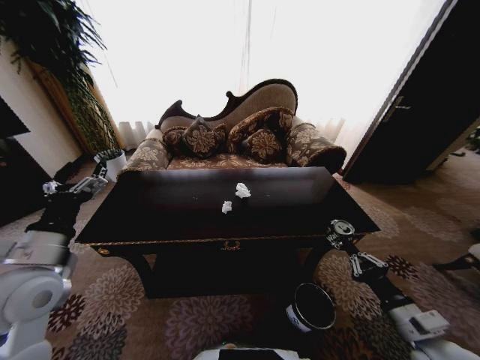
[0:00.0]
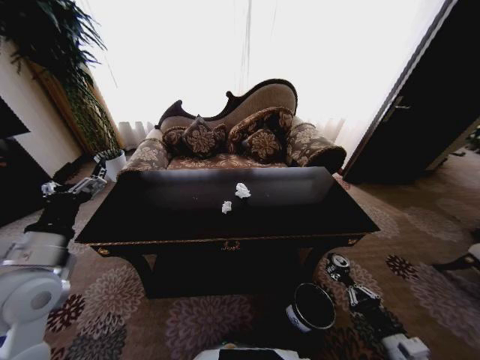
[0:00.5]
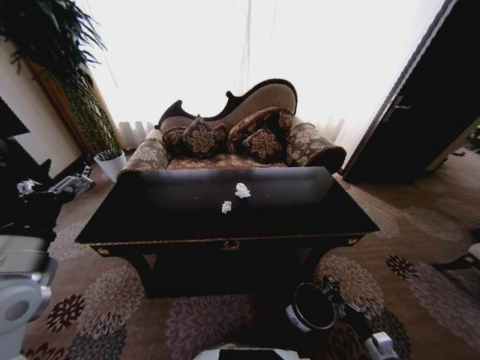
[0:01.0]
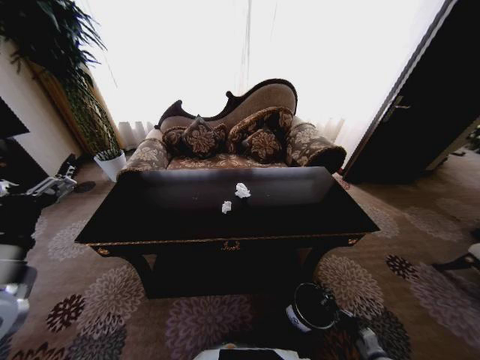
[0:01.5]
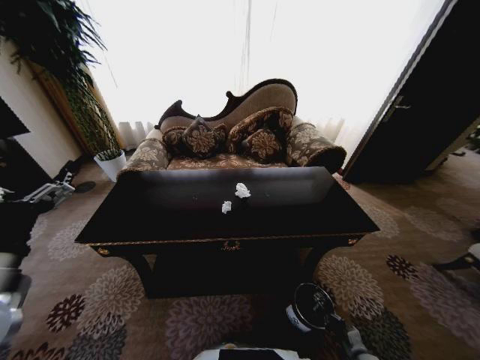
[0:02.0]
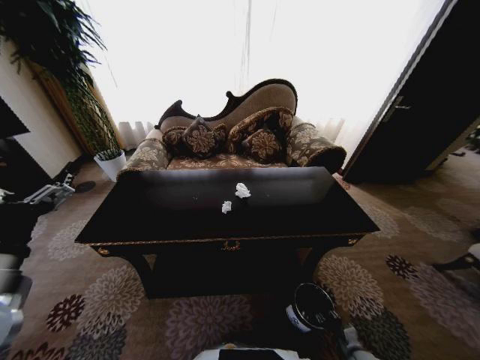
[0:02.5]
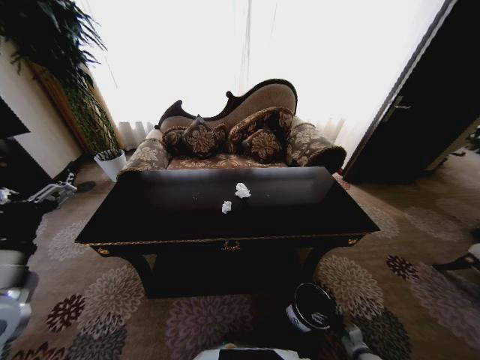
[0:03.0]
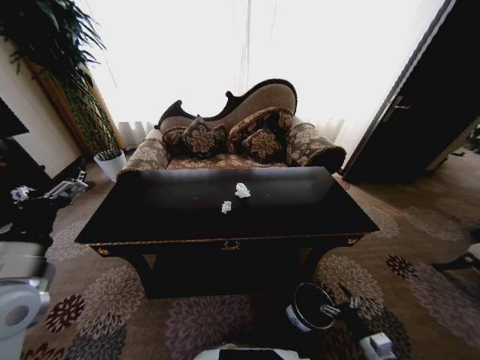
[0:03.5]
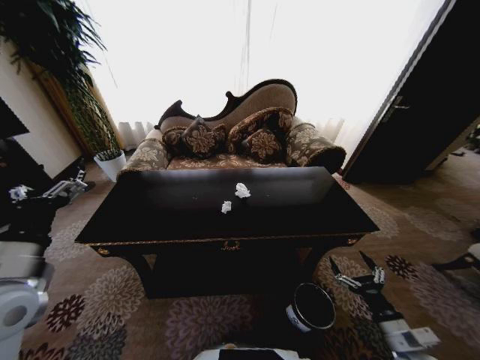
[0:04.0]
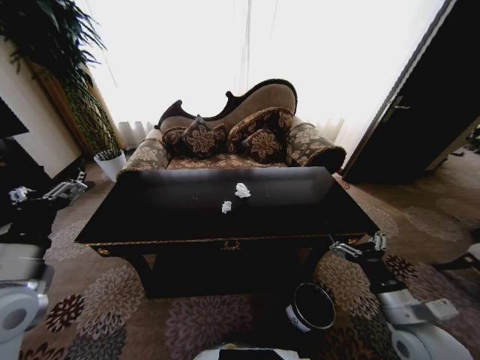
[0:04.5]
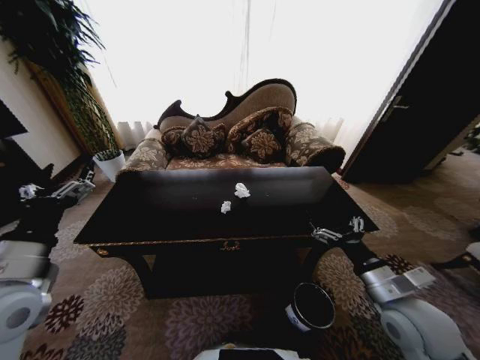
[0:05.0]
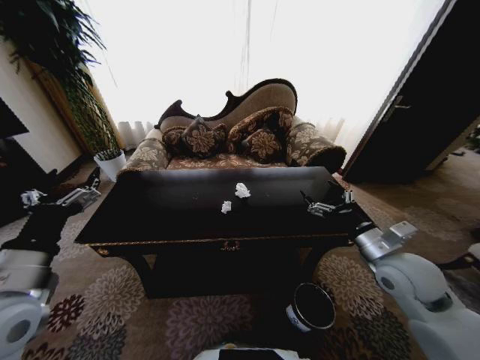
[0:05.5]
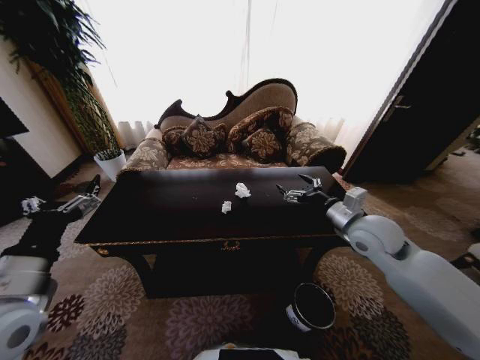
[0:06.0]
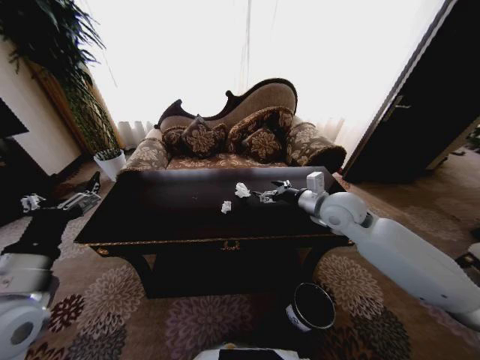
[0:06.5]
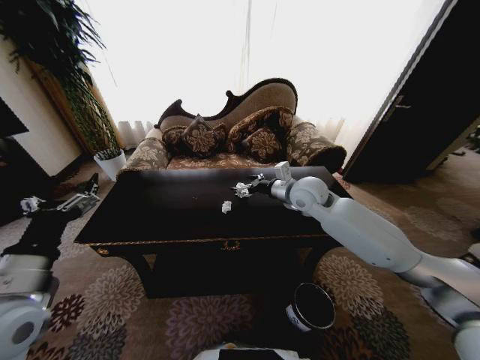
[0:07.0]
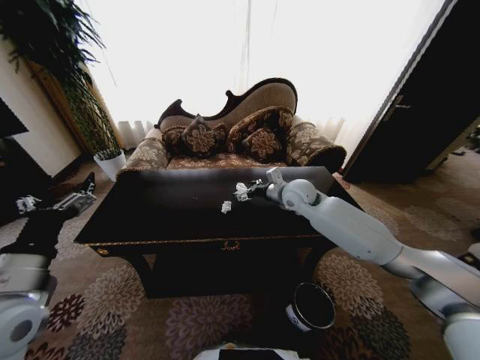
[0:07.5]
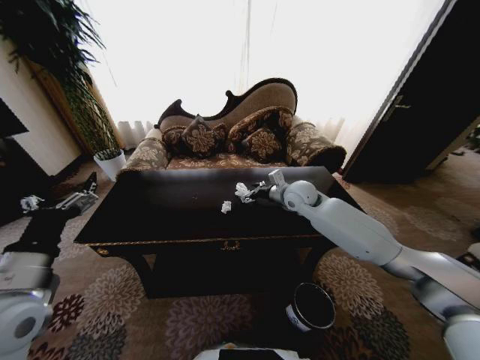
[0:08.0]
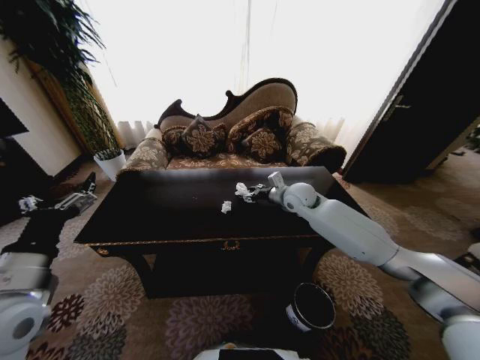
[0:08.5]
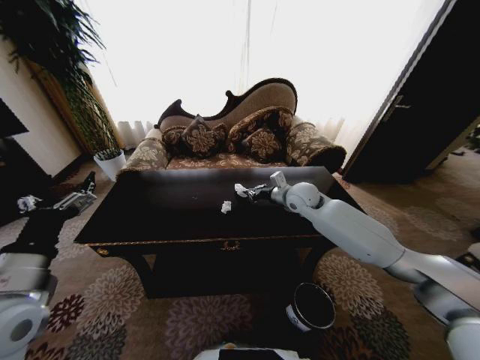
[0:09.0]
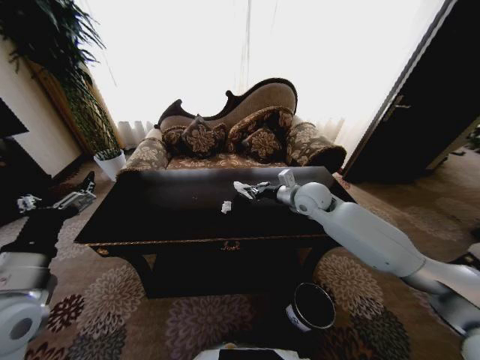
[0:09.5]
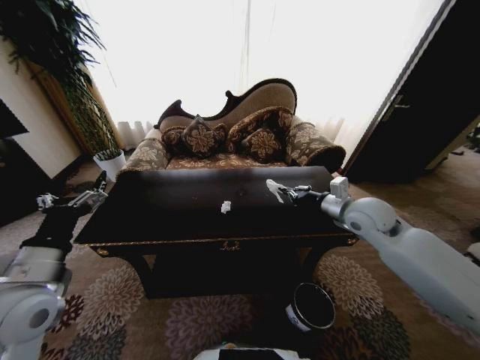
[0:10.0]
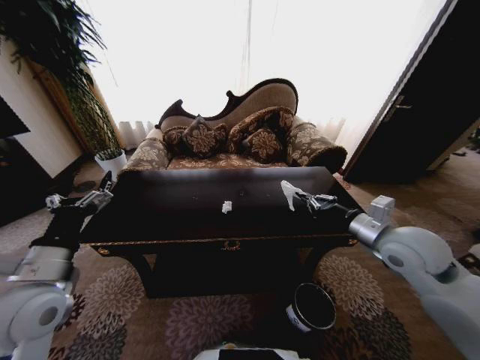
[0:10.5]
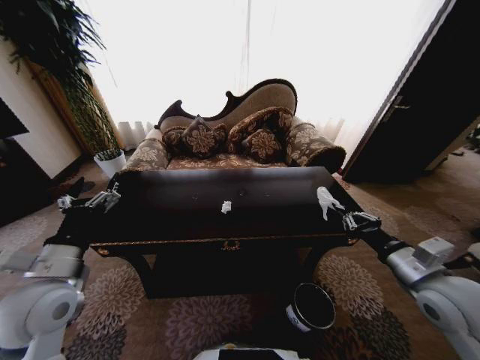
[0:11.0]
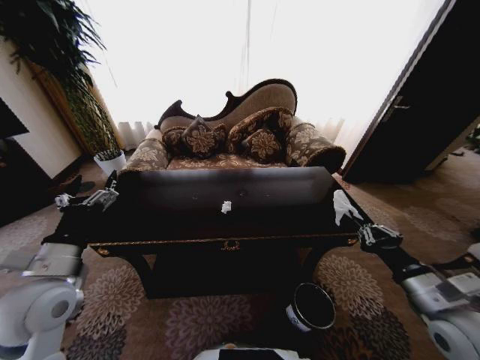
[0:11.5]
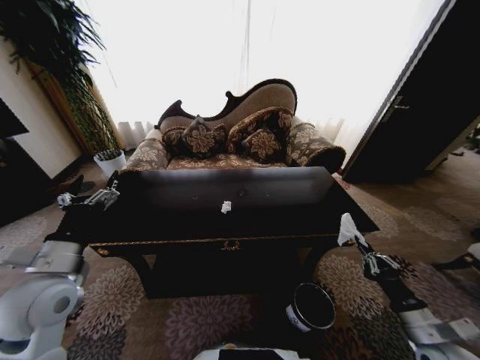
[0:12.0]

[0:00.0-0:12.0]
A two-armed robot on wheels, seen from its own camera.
Task of the whole recording: Move to the front of the table and place the trash on the table into the trash bin.
0:00.0 to 0:02.0: The left gripper is displaced backward by about 5 cm; the right gripper heads downward, covering some 30 cm.
0:02.0 to 0:04.0: The right gripper is displaced upward by some 25 cm, and opens its fingers.
0:04.0 to 0:06.0: The right gripper travels forward, upward and to the left by roughly 35 cm.
0:06.0 to 0:08.0: The right gripper is displaced forward and to the left by approximately 20 cm.
0:08.0 to 0:10.0: The right gripper goes approximately 15 cm to the right and backward, and closes.
0:10.0 to 0:12.0: The right gripper goes some 30 cm backward and downward.

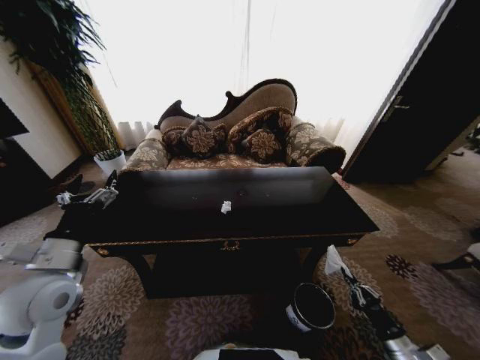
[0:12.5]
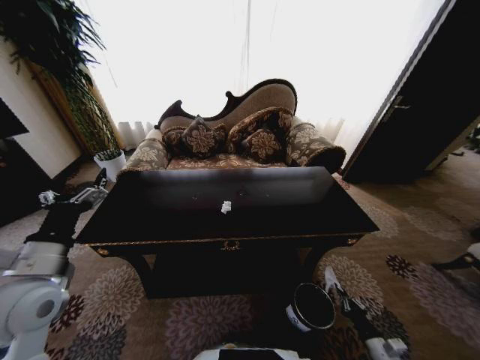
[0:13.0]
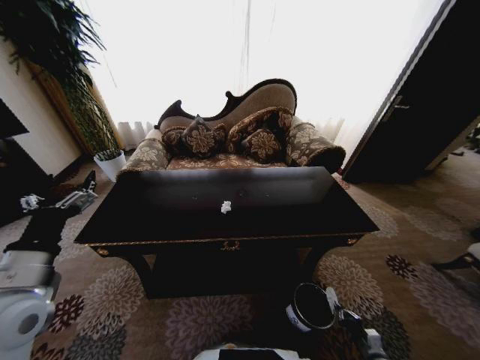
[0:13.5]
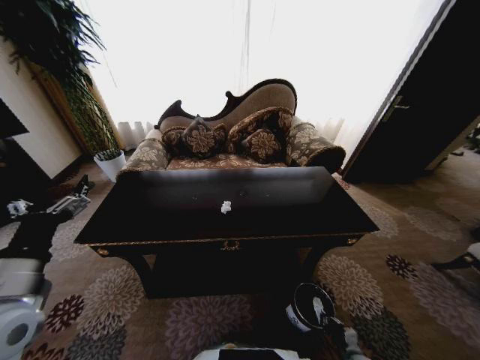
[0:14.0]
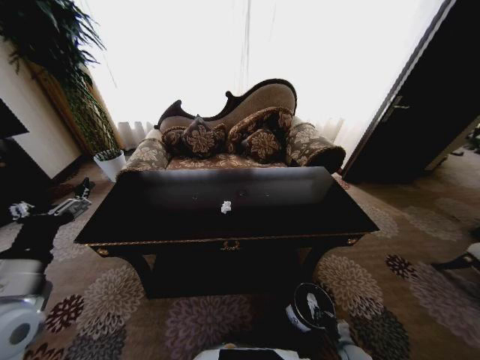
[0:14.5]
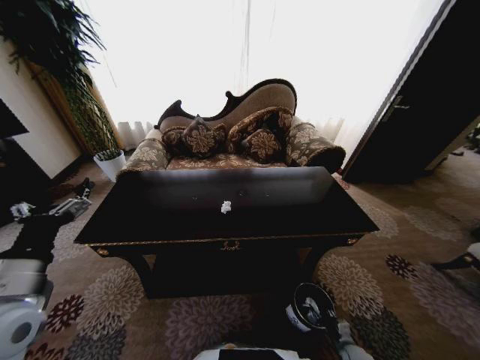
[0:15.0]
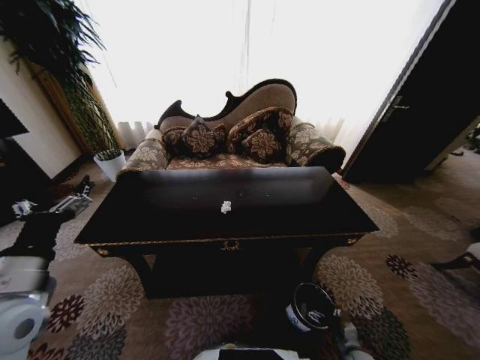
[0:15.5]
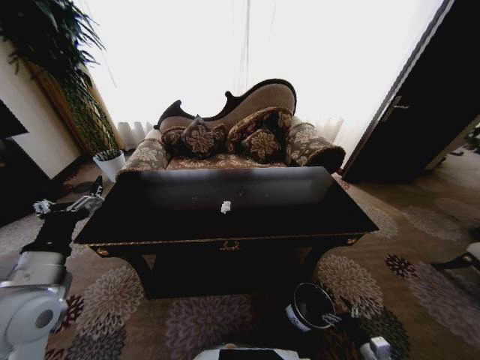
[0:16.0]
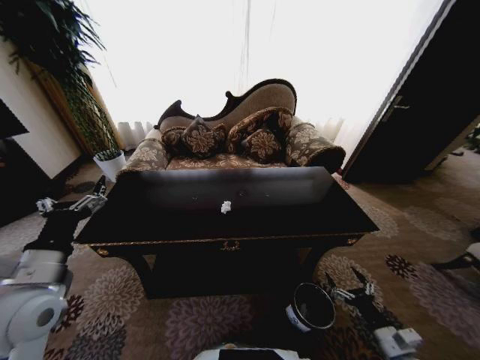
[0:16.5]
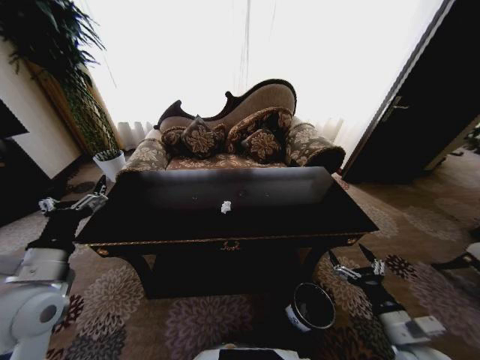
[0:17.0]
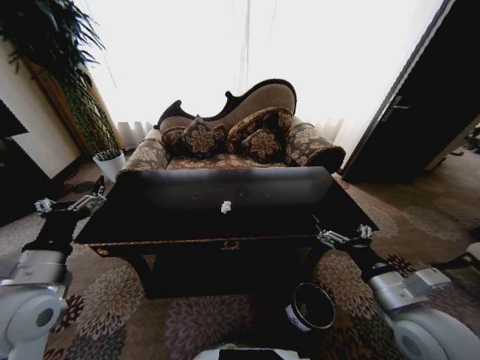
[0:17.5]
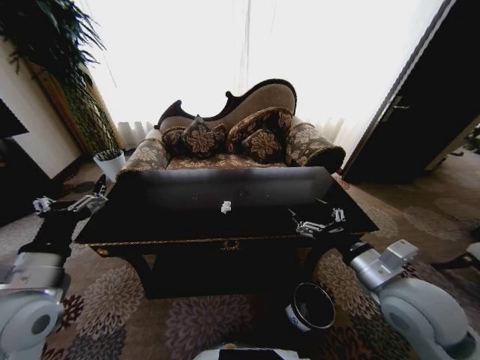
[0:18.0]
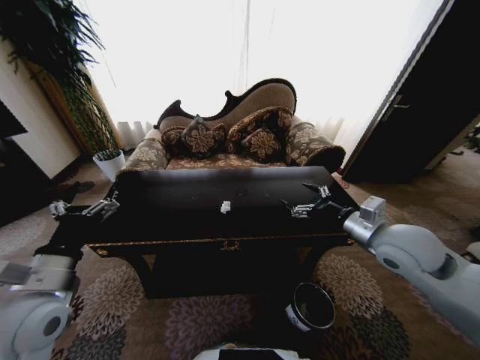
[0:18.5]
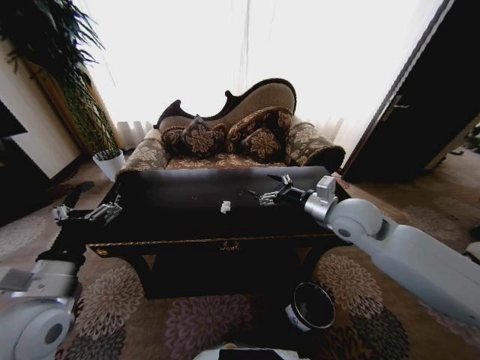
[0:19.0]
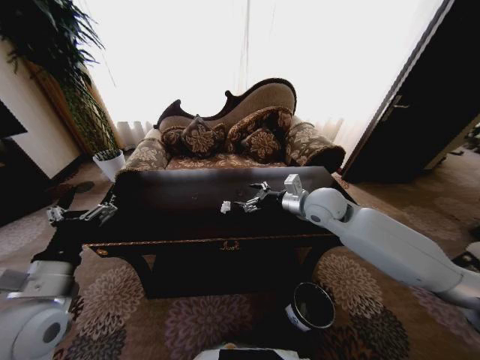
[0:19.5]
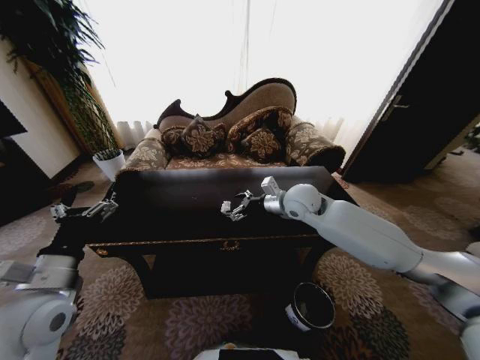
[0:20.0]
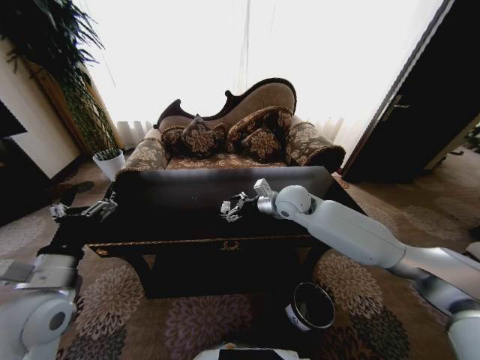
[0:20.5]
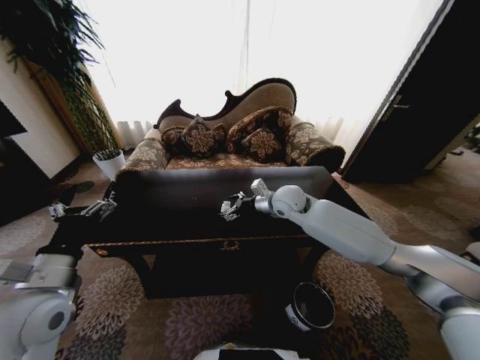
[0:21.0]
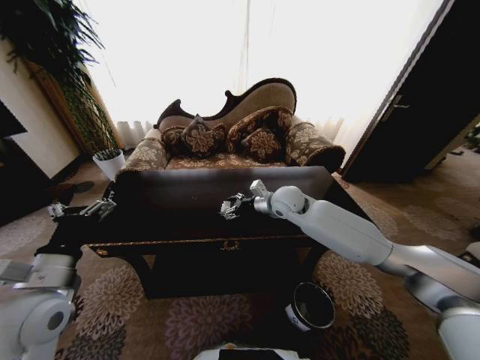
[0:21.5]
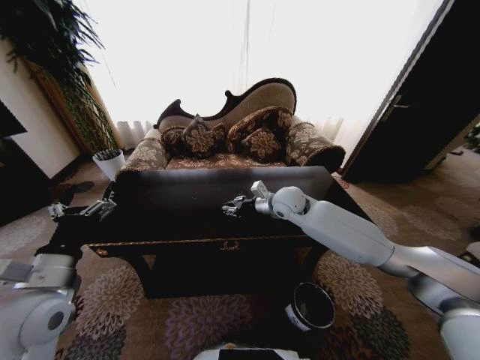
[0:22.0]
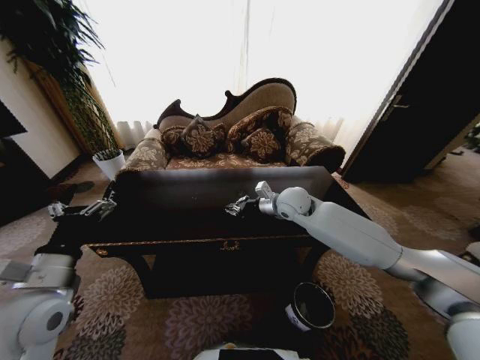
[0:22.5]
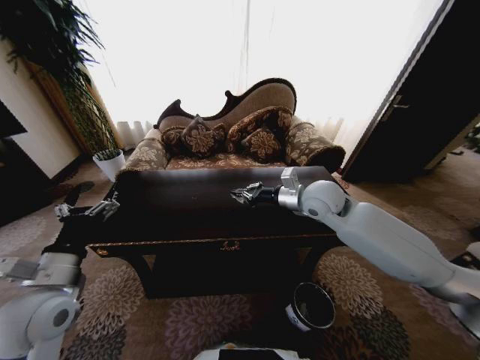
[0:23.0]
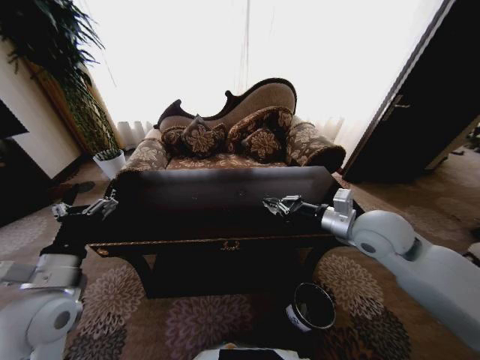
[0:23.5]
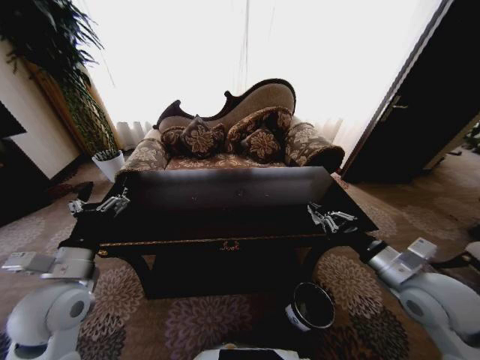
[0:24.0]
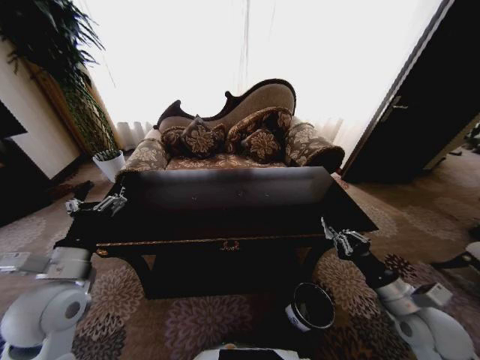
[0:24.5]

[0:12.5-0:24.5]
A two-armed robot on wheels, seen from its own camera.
Task of the whole recording: Move to the front of the table and place the trash on the table into the trash bin.
0:12.5 to 0:14.5: The left gripper is displaced backward by about 5 cm. The right gripper goes some 20 cm downward.
0:14.5 to 0:16.5: The right gripper shifts some 20 cm upward, and opens its fingers.
0:16.5 to 0:18.5: The right gripper heads upward and forward, covering roughly 35 cm.
0:18.5 to 0:20.5: The right gripper travels forward and to the left by about 25 cm.
0:20.5 to 0:22.5: The right gripper closes its fingers.
0:22.5 to 0:24.5: The right gripper moves backward and to the right, some 35 cm.

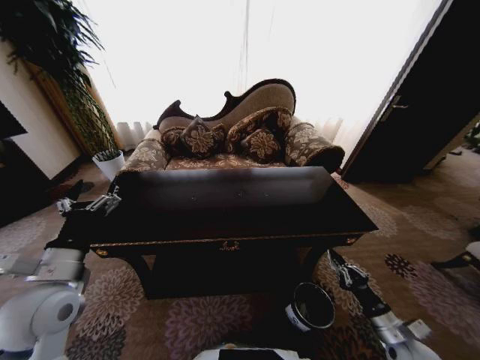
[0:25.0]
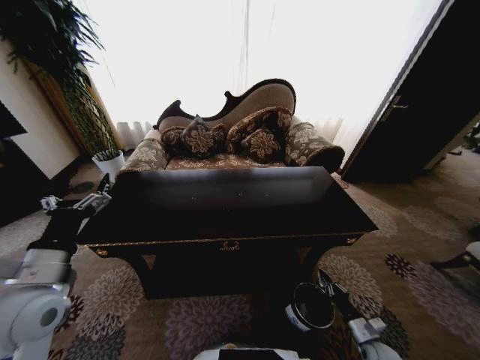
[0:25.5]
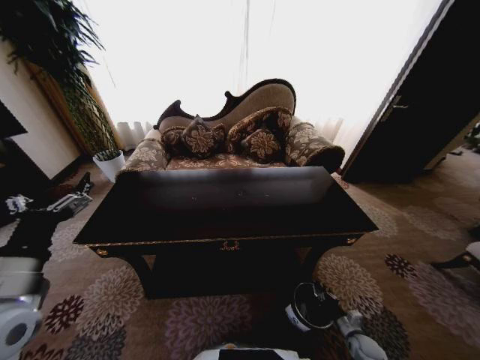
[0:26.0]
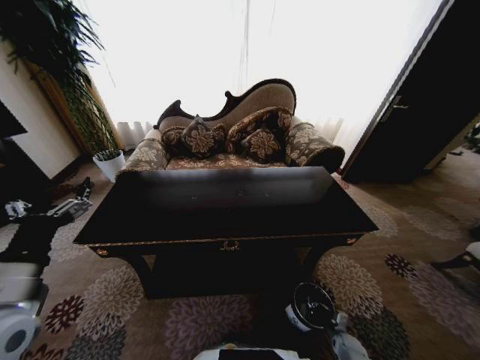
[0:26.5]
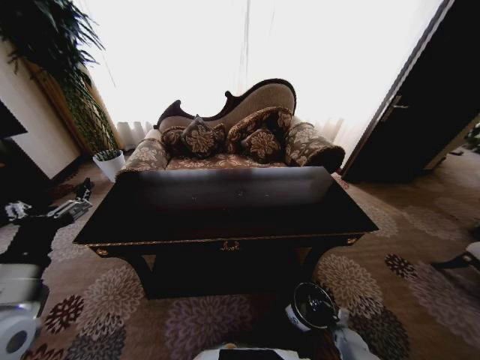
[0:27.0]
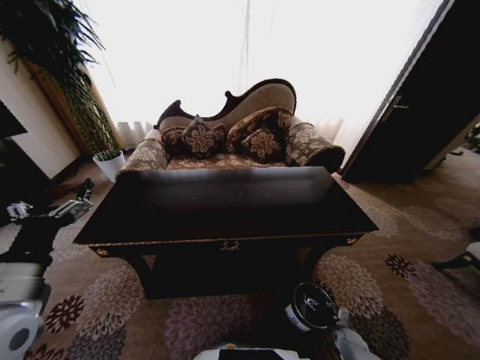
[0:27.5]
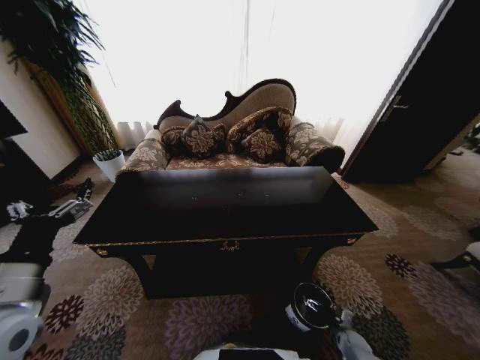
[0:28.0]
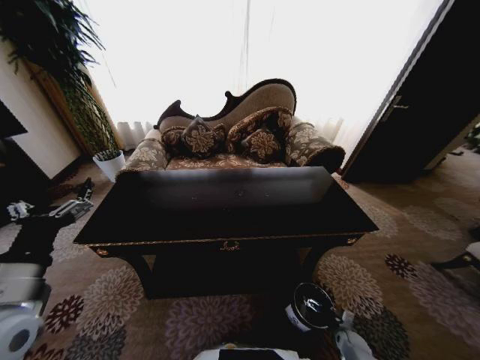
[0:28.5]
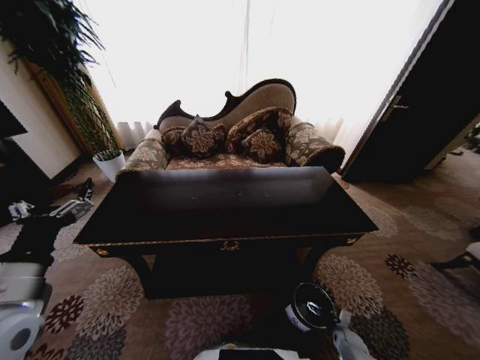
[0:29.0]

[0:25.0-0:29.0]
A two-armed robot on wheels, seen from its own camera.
Task of the whole recording: Move to the front of the table and place the trash on the table into the trash bin.
0:25.0 to 0:27.0: The right gripper shifts some 25 cm downward, while the left gripper changes place by roughly 5 cm.
